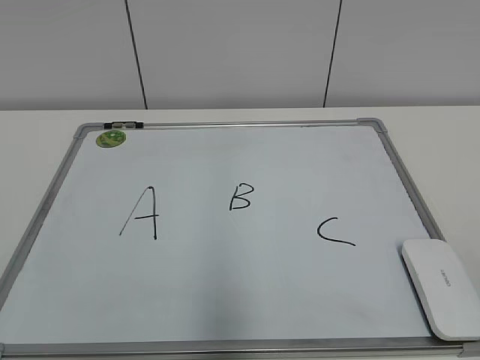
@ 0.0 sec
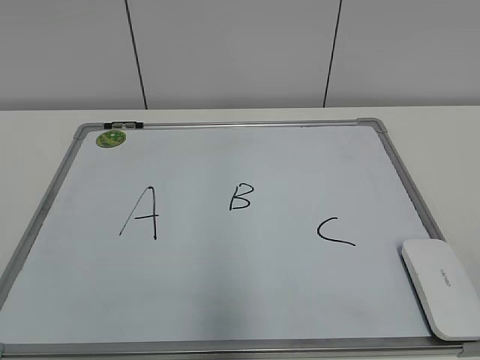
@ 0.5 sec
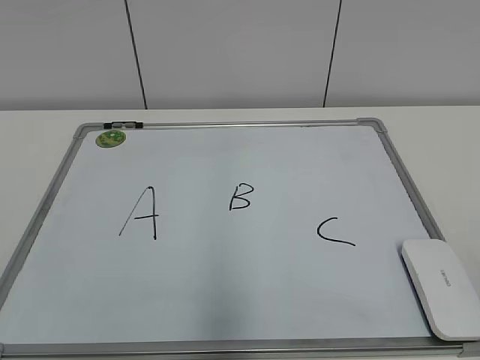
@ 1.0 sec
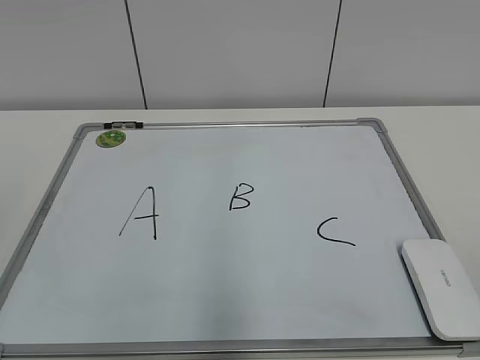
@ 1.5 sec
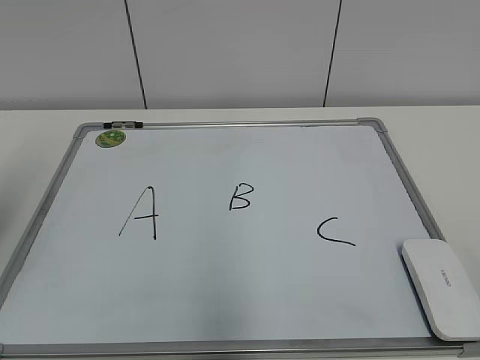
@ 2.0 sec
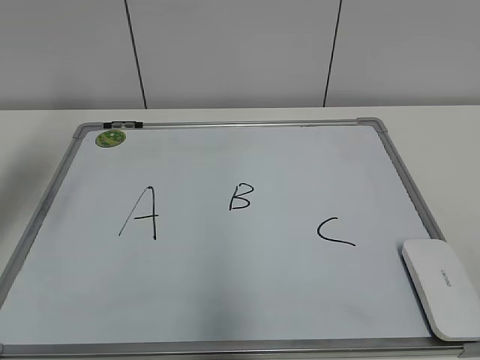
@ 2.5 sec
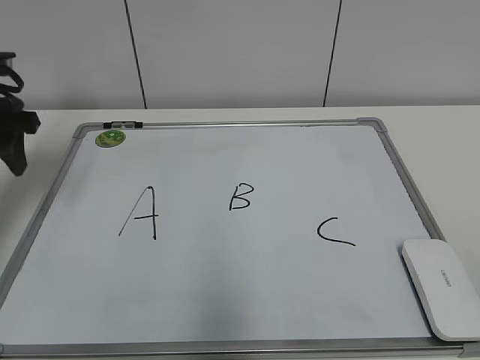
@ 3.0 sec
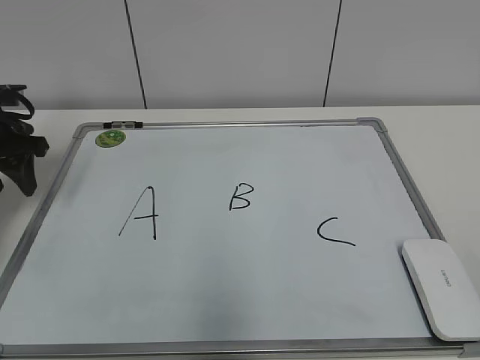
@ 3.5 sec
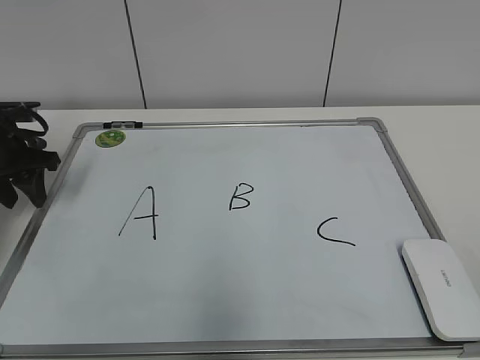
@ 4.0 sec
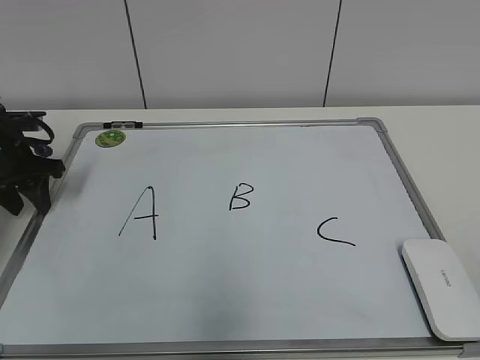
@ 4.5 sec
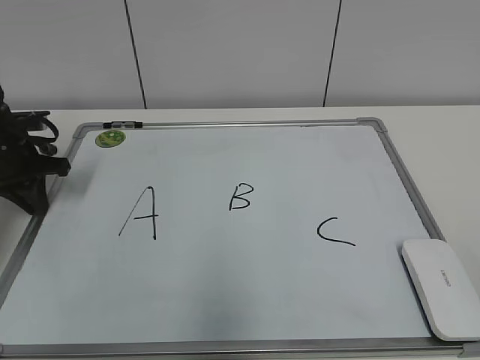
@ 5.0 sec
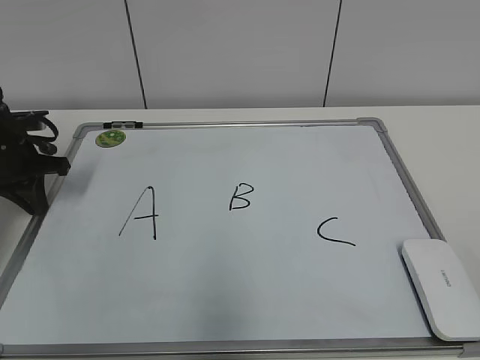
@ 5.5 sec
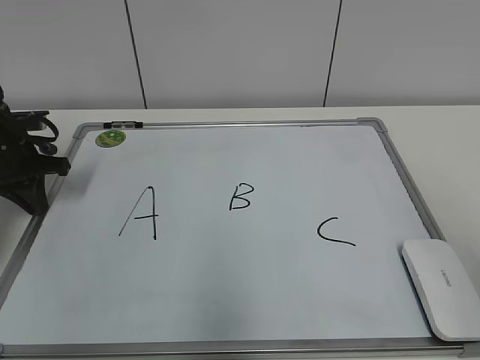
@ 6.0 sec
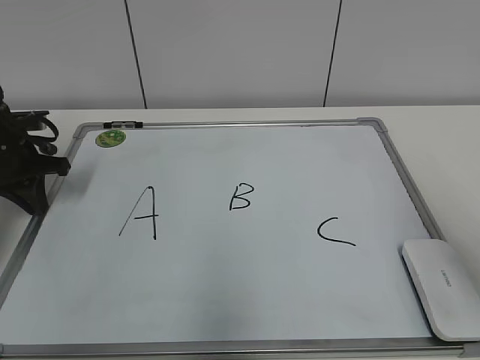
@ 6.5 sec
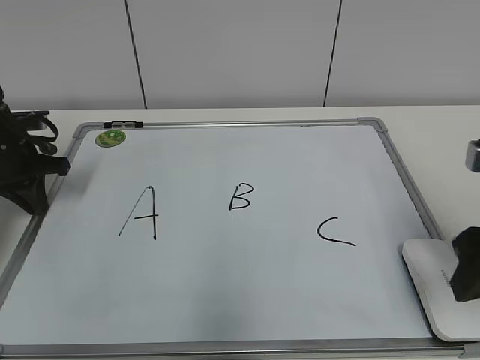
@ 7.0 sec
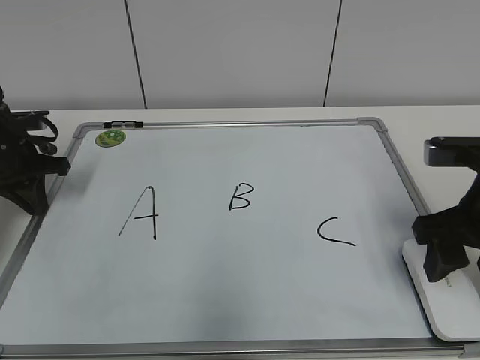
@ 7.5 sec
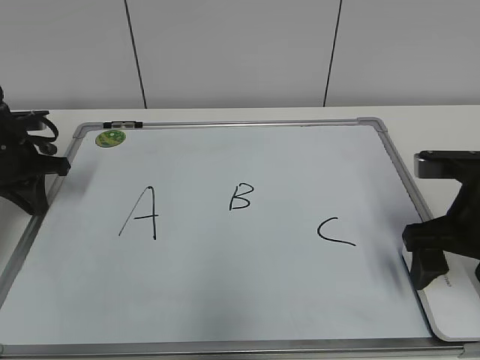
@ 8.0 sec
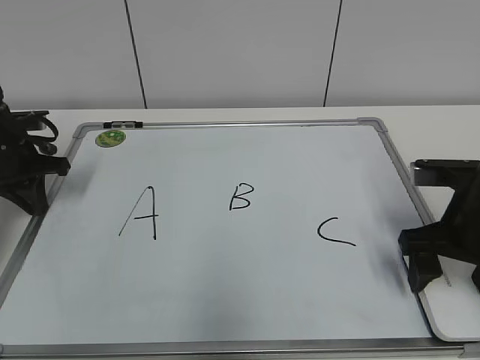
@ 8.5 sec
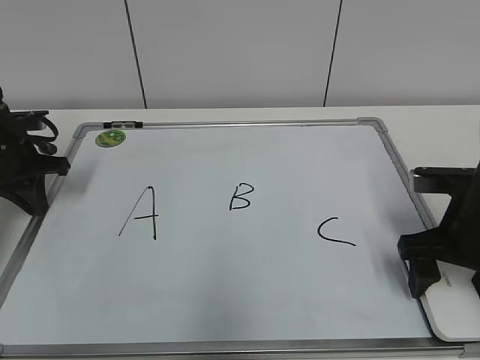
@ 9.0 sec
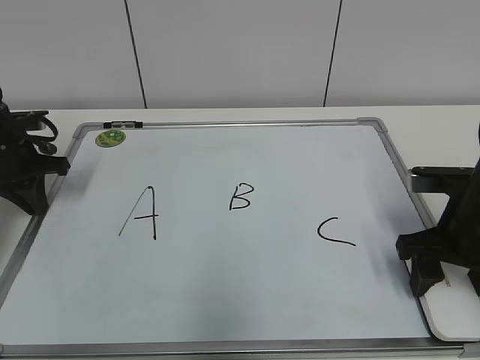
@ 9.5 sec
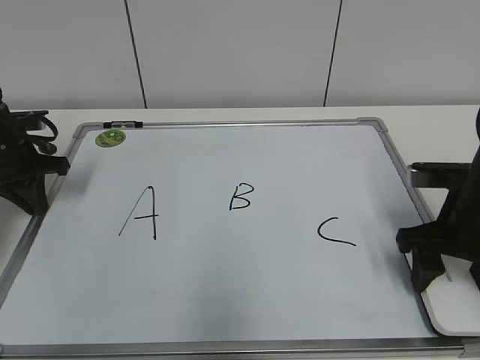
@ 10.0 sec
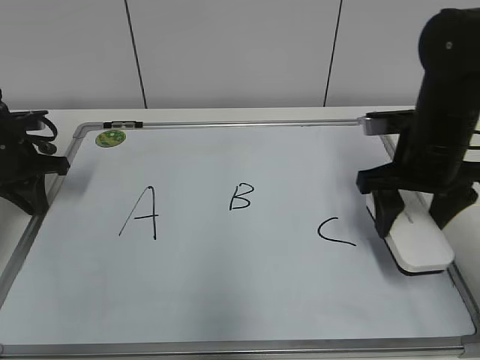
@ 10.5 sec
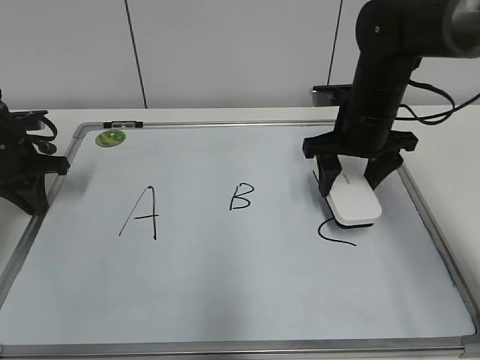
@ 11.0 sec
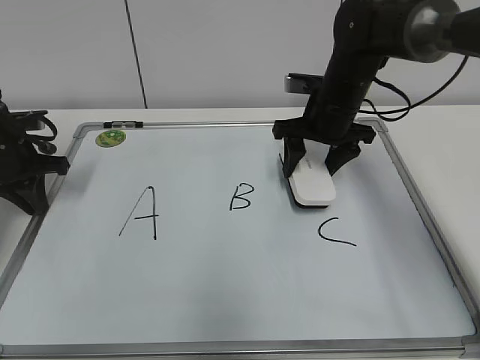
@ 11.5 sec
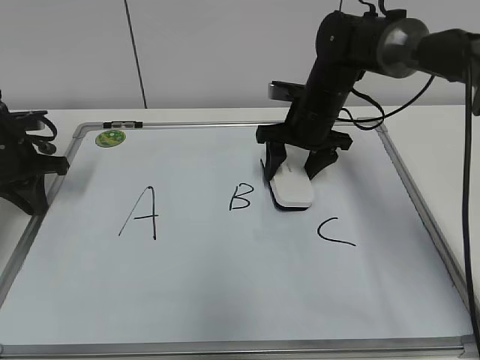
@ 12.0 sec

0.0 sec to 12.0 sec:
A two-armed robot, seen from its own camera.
Task of the whole recording: pick up the eraser on the blackboard and erase the letter "B".
Step, 0.0 sec to 5.0 sec: Hold the drawing board steady with your left hand.
Step, 5.5 sec to 9.5 sec: Grab the eraser with your right hand.
2.0 sec to 4.0 sec: The left gripper travels forward and downward by some 25 cm.
4.0 sec to 6.0 sec: The left gripper closes up.
6.0 sec to 8.0 sec: The right gripper travels forward and downward by some 25 cm, and opens.
8.0 sec to 10.0 sec: The right gripper closes.
10.0 sec to 12.0 sec: The right gripper is displaced forward and to the left by some 20 cm.

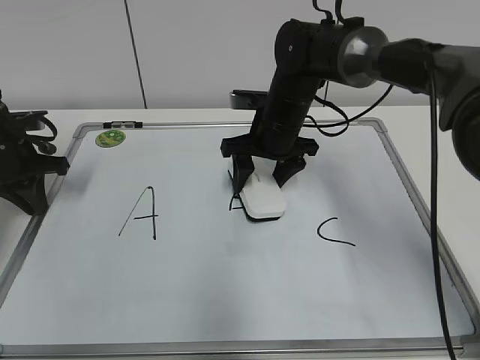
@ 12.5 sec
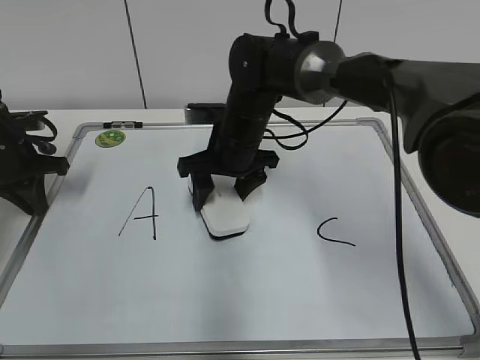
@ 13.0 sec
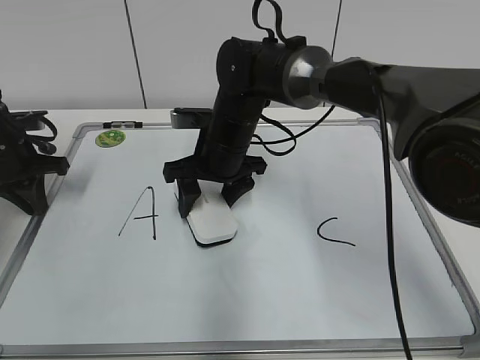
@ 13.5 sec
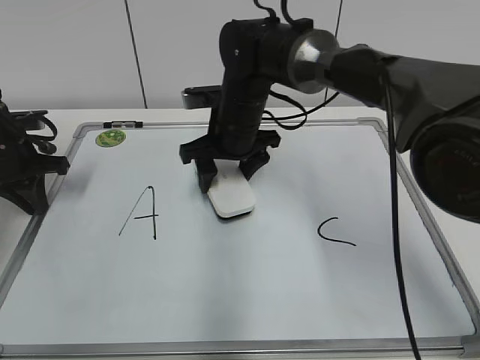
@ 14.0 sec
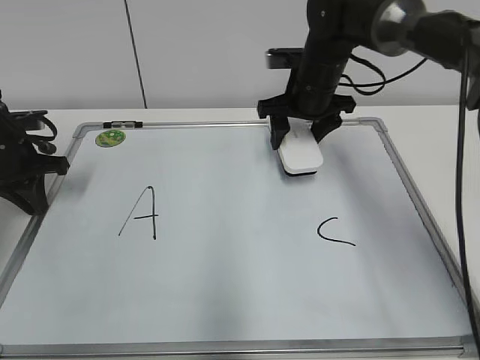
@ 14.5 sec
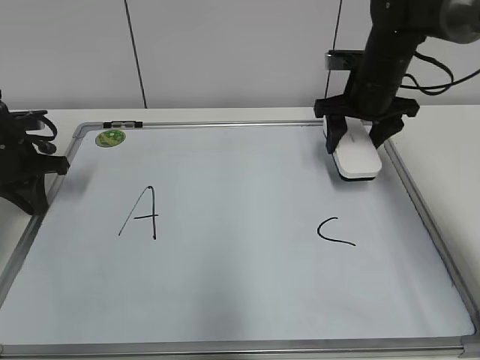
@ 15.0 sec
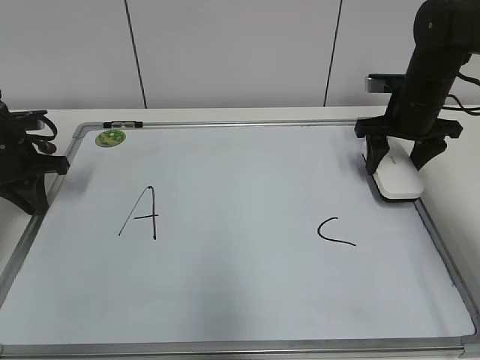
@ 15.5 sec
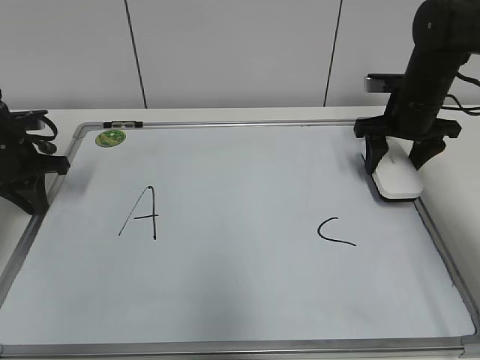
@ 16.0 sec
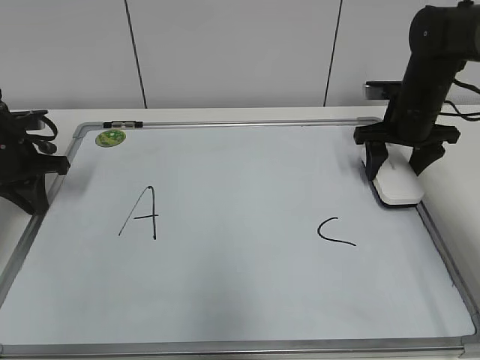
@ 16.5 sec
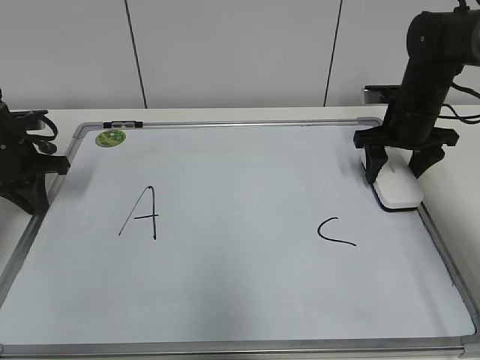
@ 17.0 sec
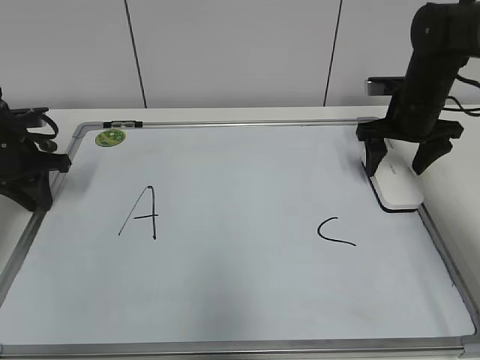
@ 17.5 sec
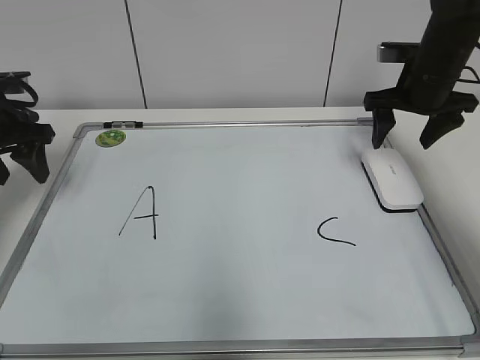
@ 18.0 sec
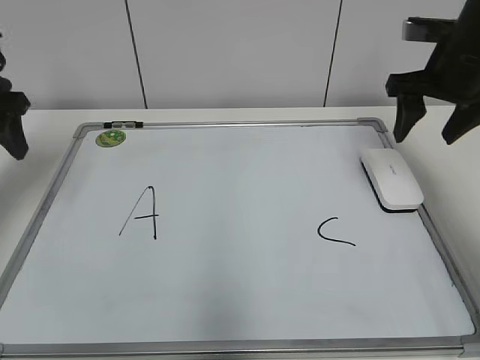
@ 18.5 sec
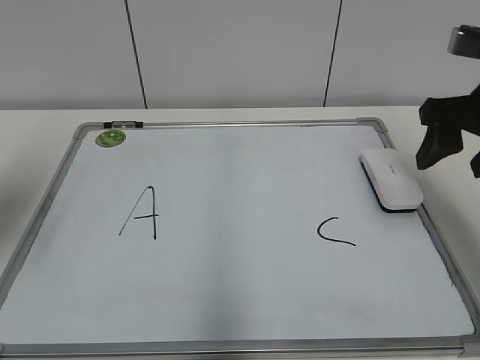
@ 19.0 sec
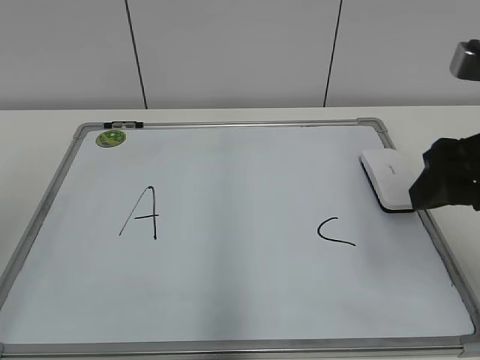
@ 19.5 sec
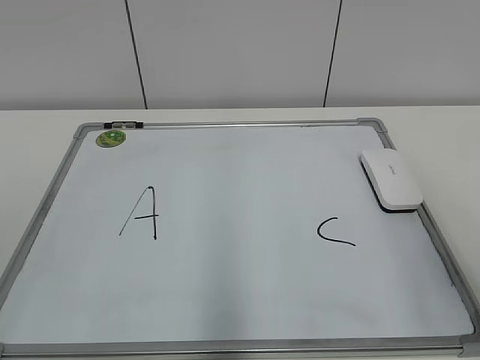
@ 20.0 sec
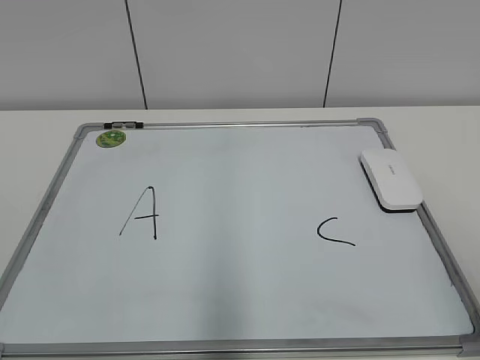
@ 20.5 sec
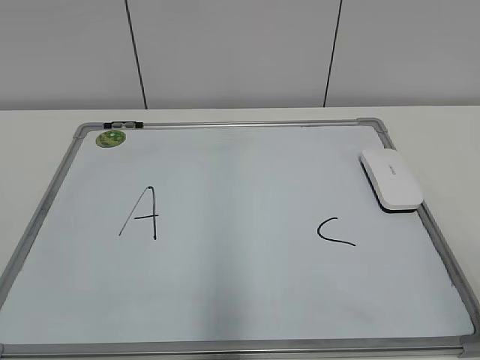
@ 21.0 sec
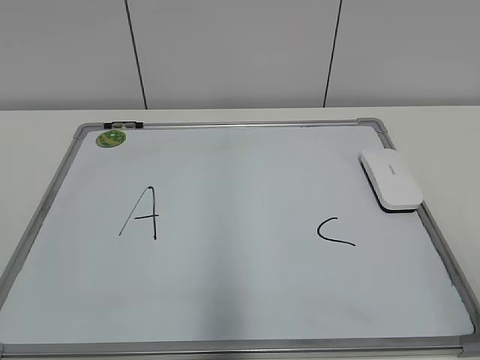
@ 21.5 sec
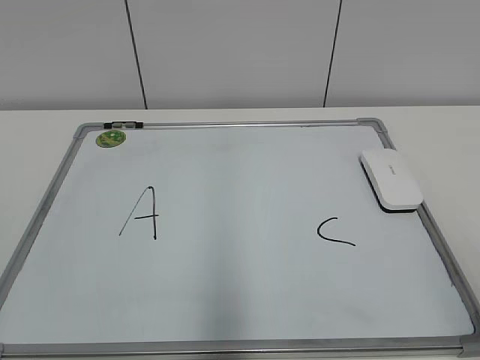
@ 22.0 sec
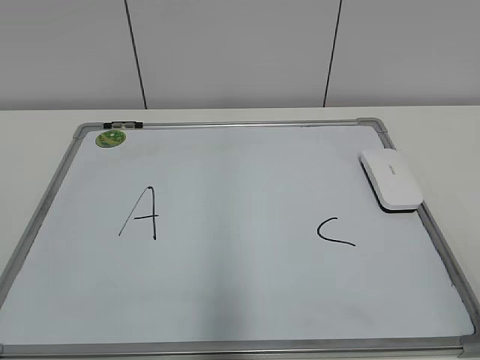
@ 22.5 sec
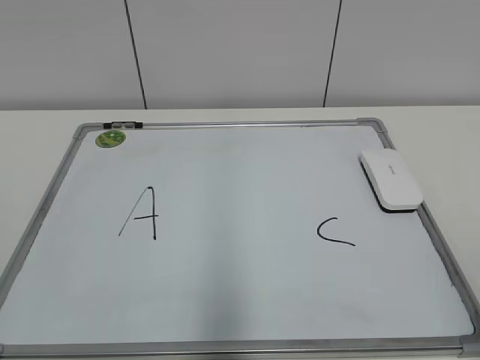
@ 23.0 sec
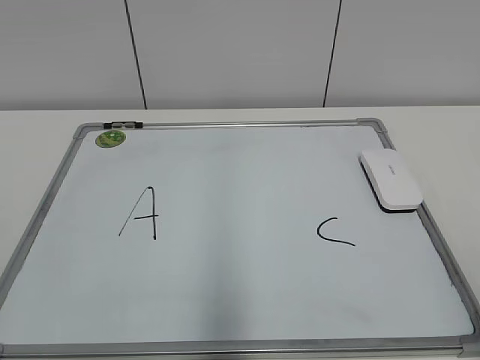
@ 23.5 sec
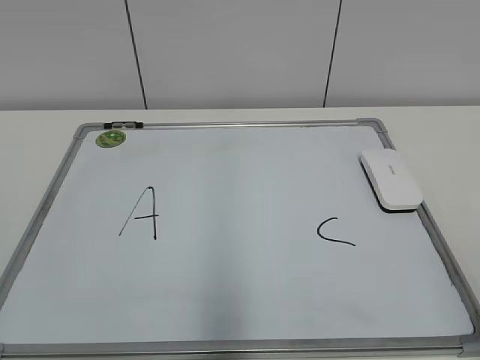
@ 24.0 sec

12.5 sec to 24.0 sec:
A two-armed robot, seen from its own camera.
Task of the whole recording: pick up the eraser on the blackboard and erase the letter "B".
12.5 sec to 14.5 sec: The right gripper changes place by some 5 cm.
14.5 sec to 16.5 sec: The right gripper is displaced to the right by roughly 15 cm.
16.5 sec to 18.5 sec: The right gripper travels upward and backward by about 10 cm, and opens, then closes again; the left gripper heads upward, covering some 10 cm, and opens its fingers.
18.5 sec to 20.0 sec: The grippers both shift backward by about 30 cm.
